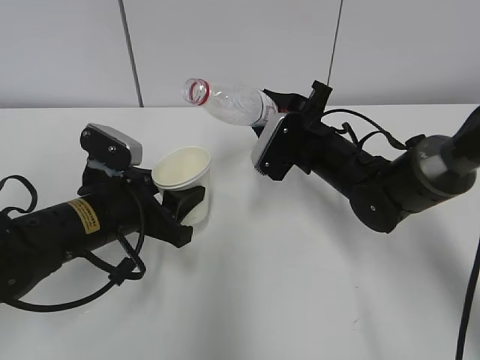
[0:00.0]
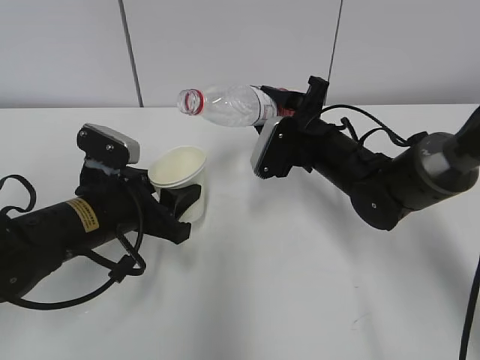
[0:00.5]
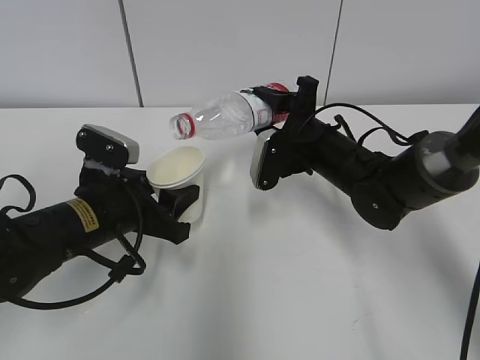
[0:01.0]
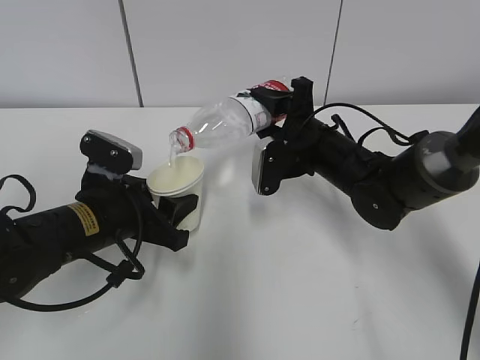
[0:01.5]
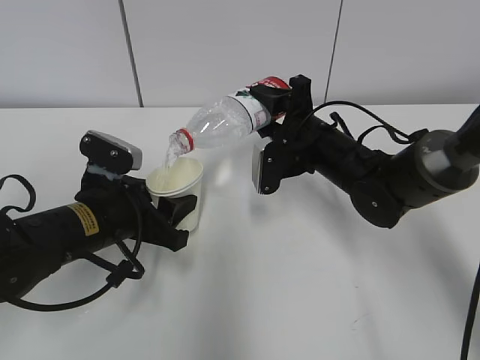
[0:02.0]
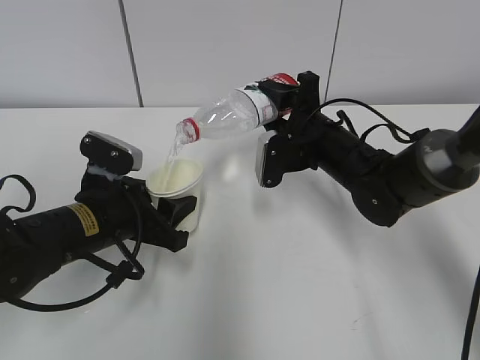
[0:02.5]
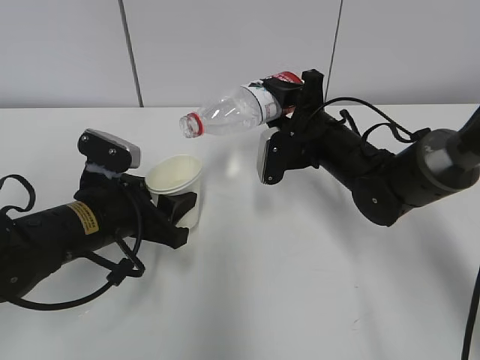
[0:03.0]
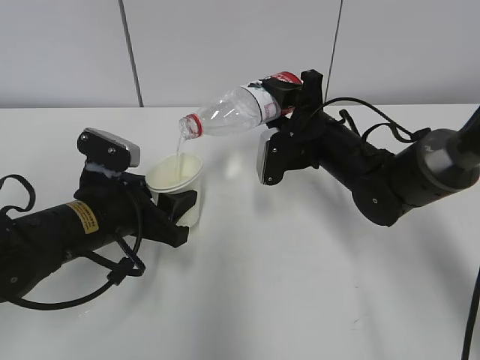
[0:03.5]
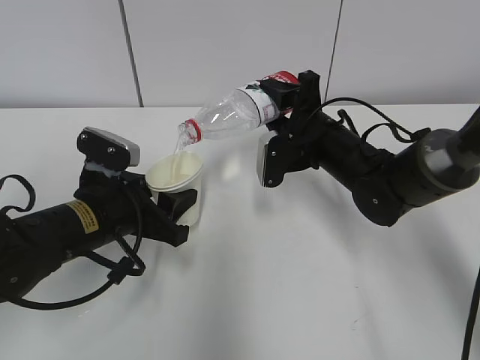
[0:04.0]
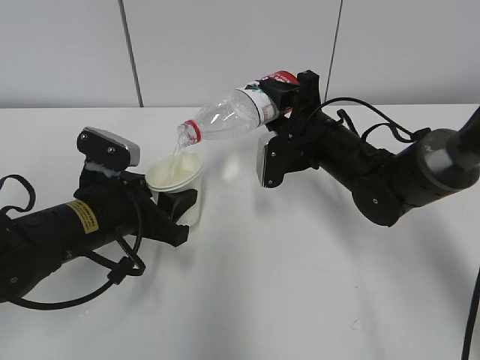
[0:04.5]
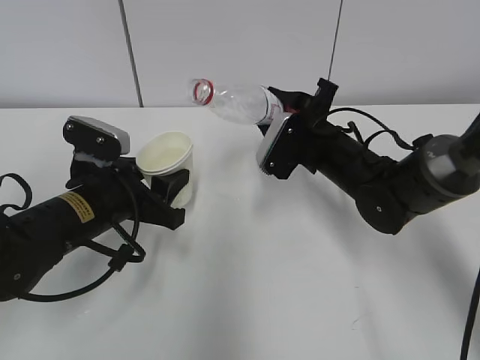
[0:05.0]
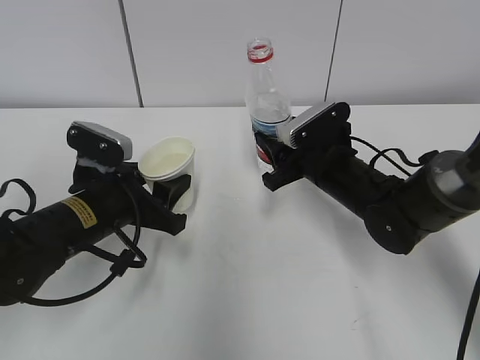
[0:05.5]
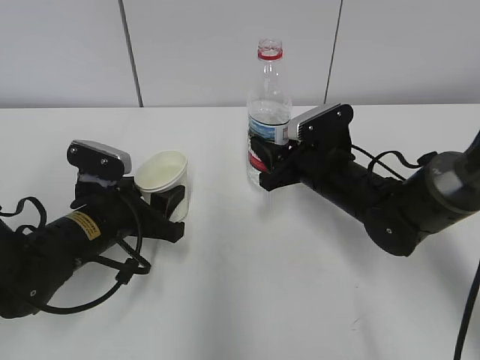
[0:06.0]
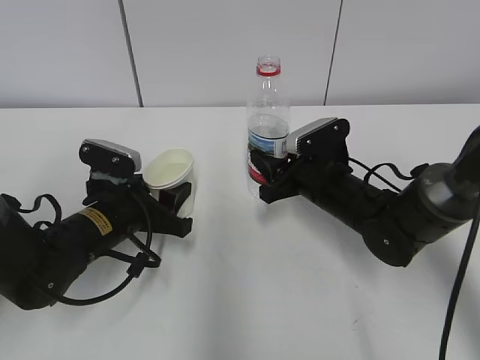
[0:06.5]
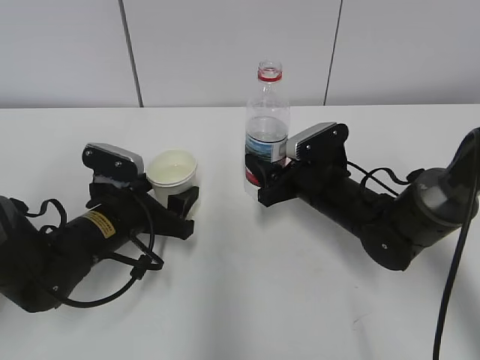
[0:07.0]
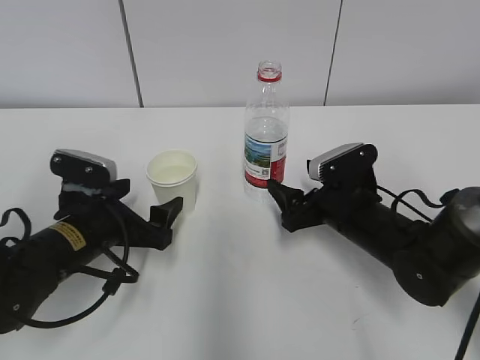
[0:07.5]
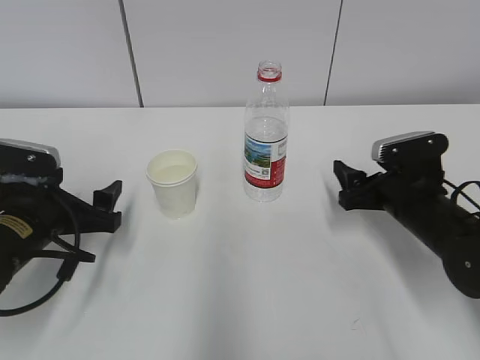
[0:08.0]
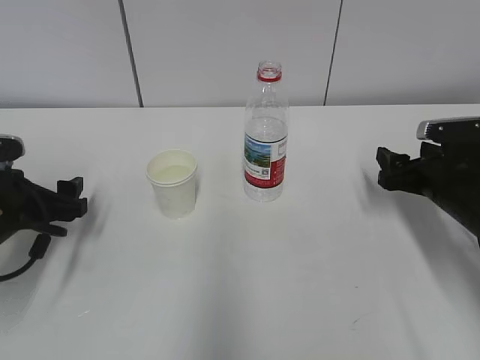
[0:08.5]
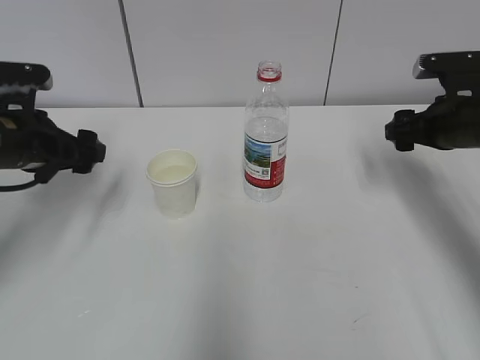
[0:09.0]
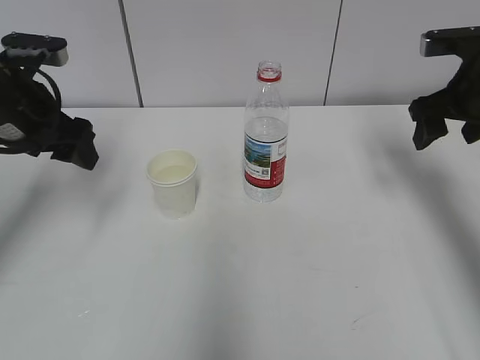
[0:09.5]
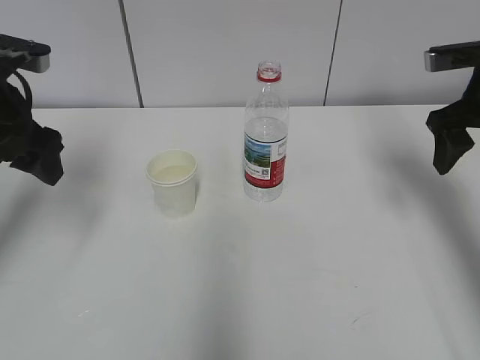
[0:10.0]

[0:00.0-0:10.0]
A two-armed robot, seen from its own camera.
Step, 0:00.0 to 0:02.0: Fill water with the left hand.
Step, 0:00.0 to 0:02.0: Pour water with the right hand.
Step, 0:02.5 to 0:03.0: Collect water with the right hand.
Step, 0:03.5 to 0:04.0: Place the paper cup with the left hand.
Step, 0:03.5 to 0:04.0: Place the water bottle with the right hand.
0:02.0 to 0:04.0: The grippers stay close to where they were, moving slightly.
0:06.0 to 0:08.0: The left gripper goes about 5 cm to the left, and opens its fingers, while the right gripper is displaced to the right and backward by about 10 cm, and opens its fingers.
0:08.0 to 0:10.0: The right gripper shifts about 20 cm upward and to the right; the left gripper moves upward, approximately 15 cm.

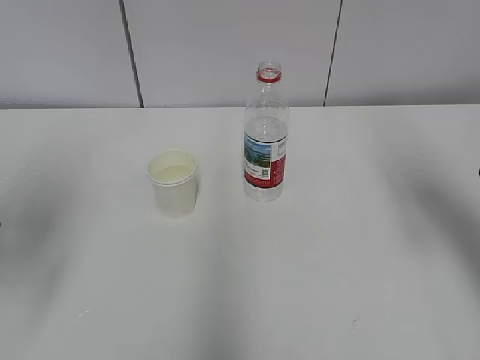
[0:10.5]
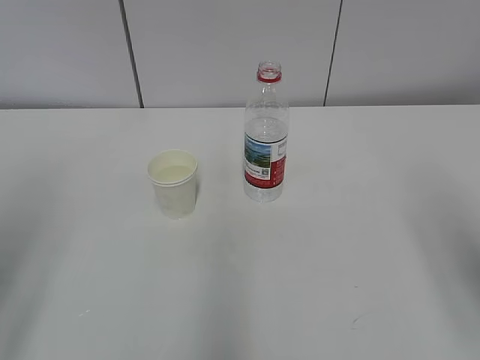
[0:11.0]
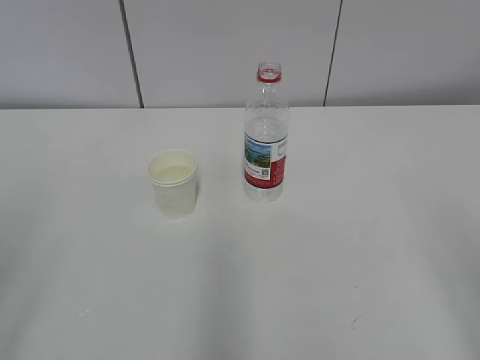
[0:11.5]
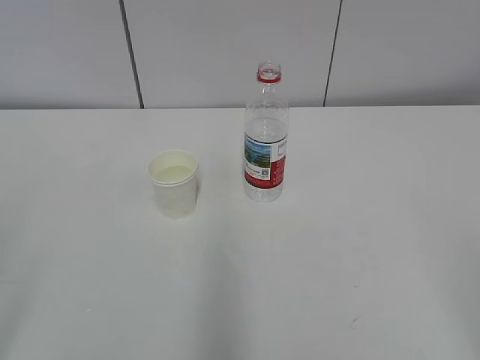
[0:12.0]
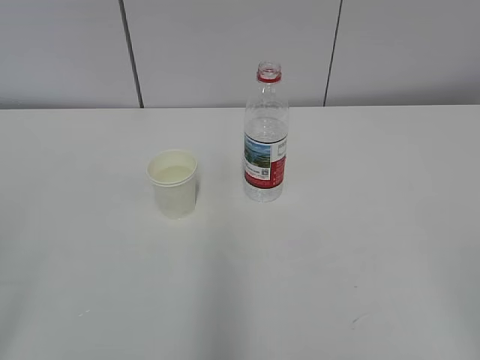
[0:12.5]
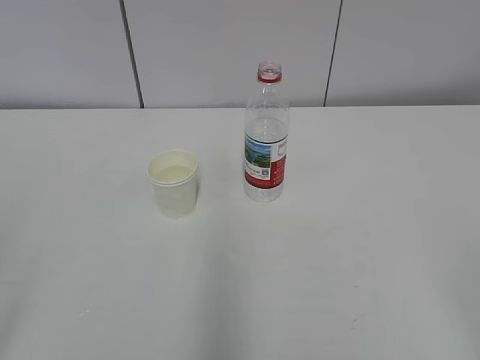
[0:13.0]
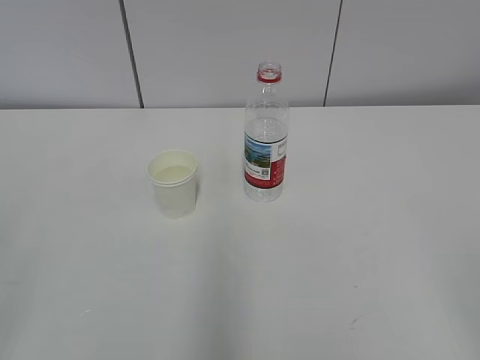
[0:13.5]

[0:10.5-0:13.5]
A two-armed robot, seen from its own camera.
0:10.5 to 0:12.0: The grippers both shift backward by some 25 cm.
